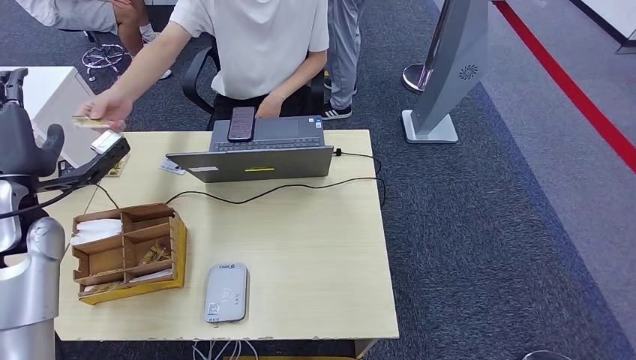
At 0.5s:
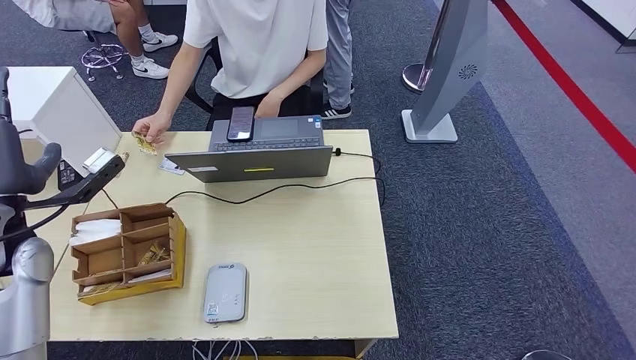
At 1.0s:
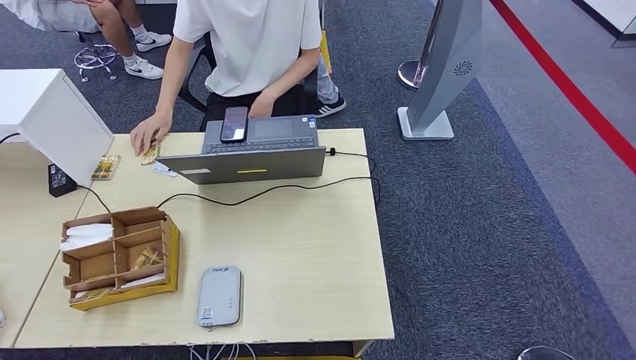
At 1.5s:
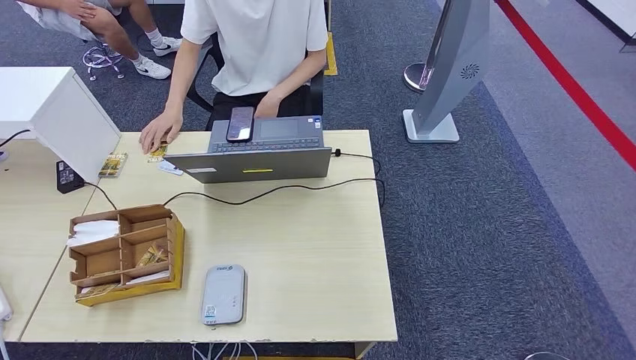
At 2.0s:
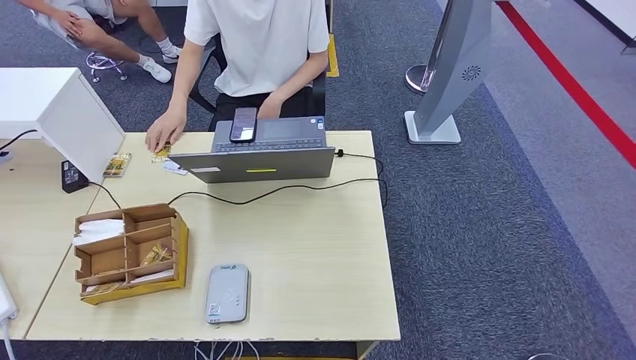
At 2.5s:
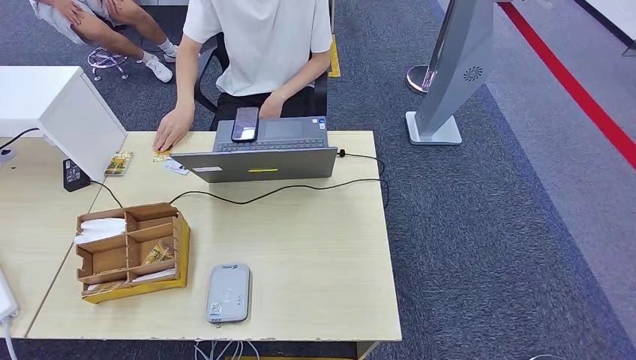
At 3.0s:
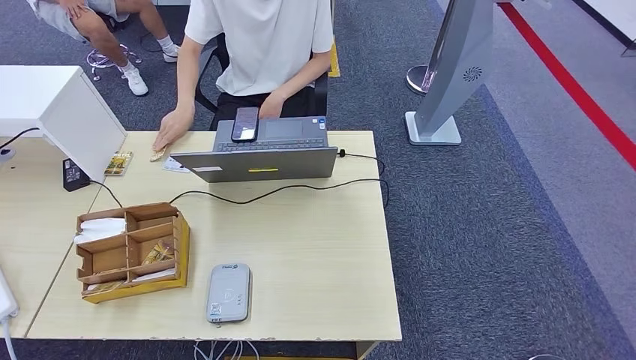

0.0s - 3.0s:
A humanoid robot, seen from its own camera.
Step, 0.0s - 3.0s: Hand the room key to the person.
1.5s - 3.0s: The left hand heads to the right and downward, covering roughly 50 cm.

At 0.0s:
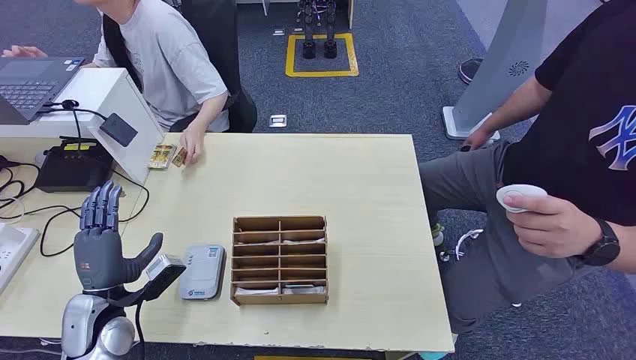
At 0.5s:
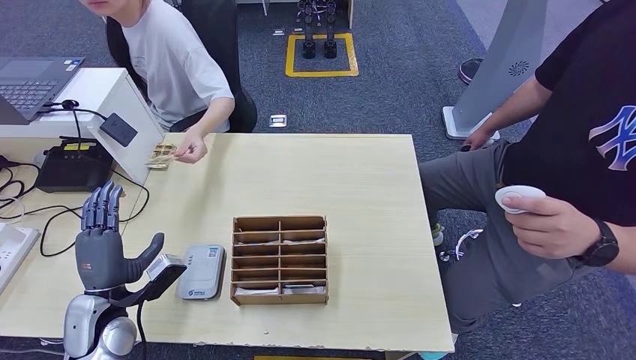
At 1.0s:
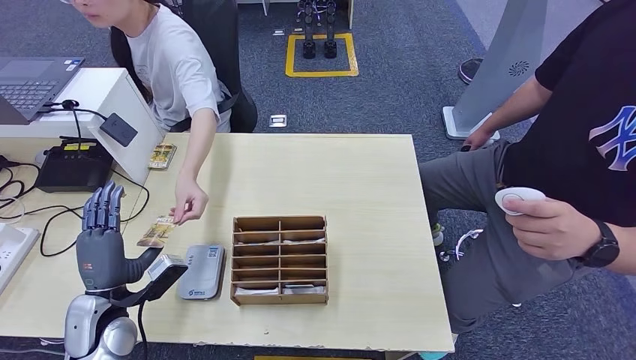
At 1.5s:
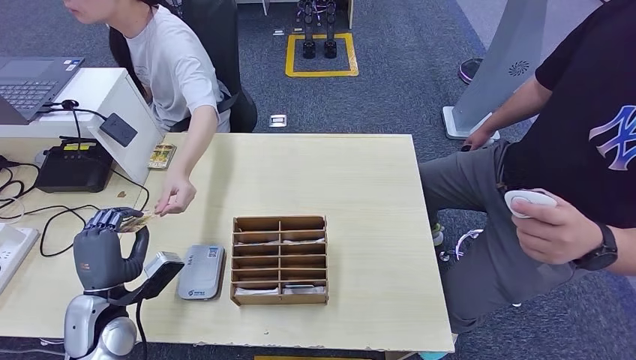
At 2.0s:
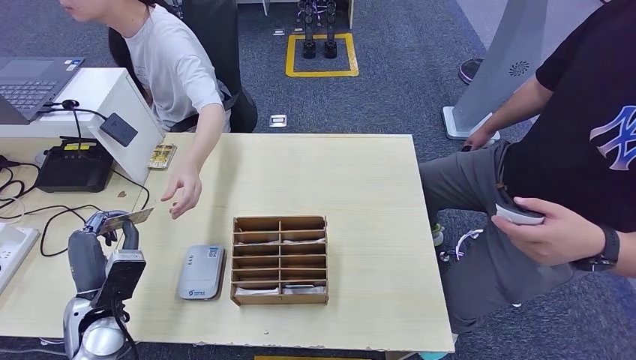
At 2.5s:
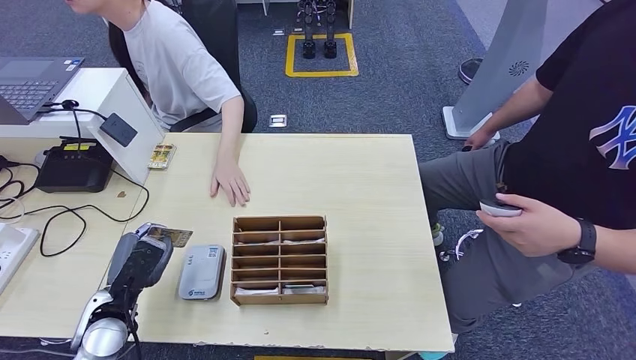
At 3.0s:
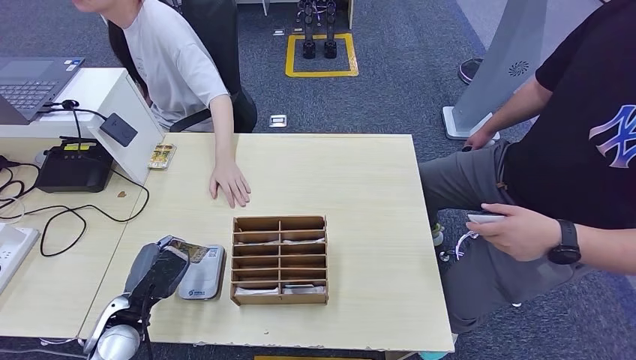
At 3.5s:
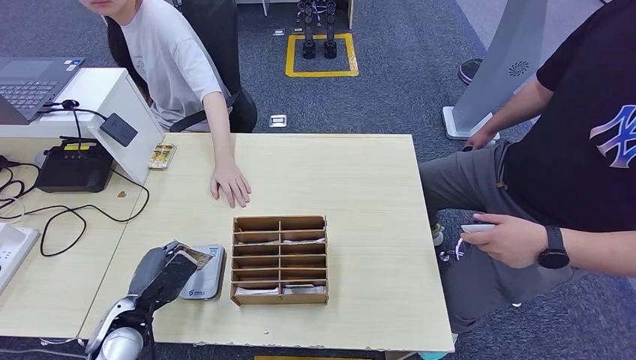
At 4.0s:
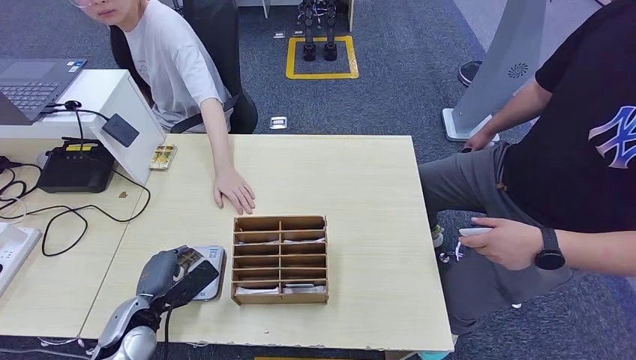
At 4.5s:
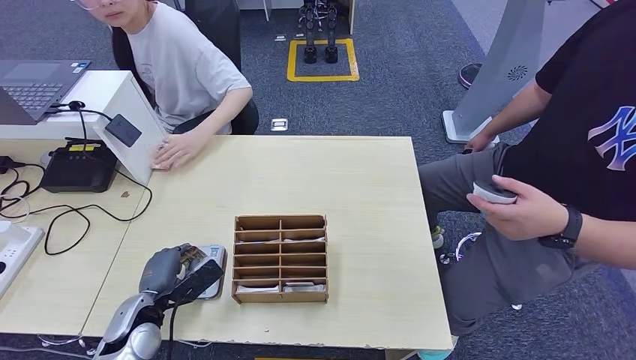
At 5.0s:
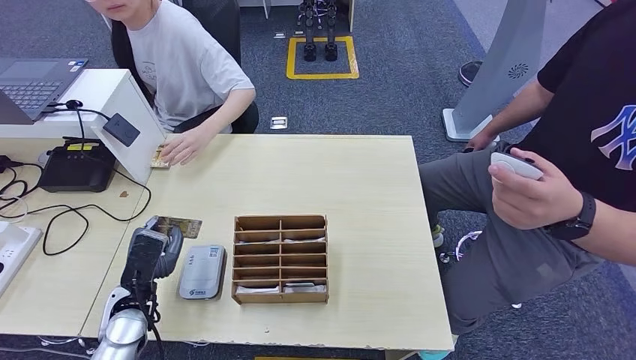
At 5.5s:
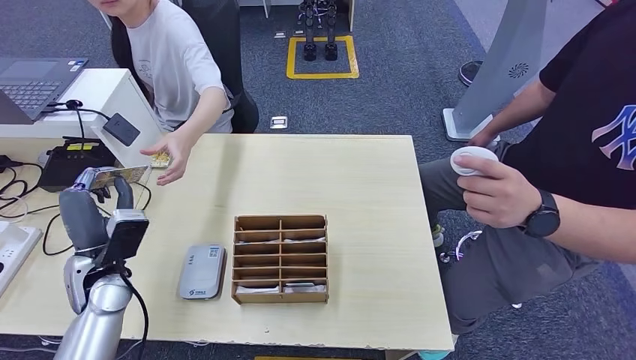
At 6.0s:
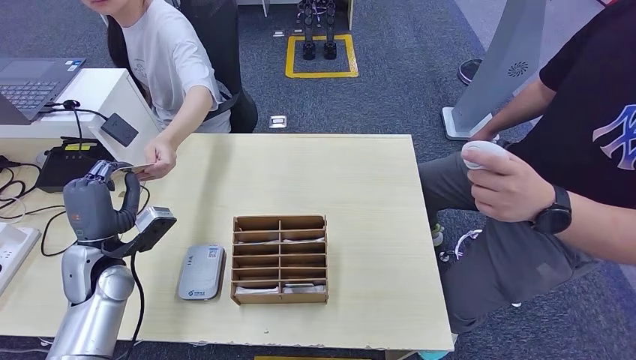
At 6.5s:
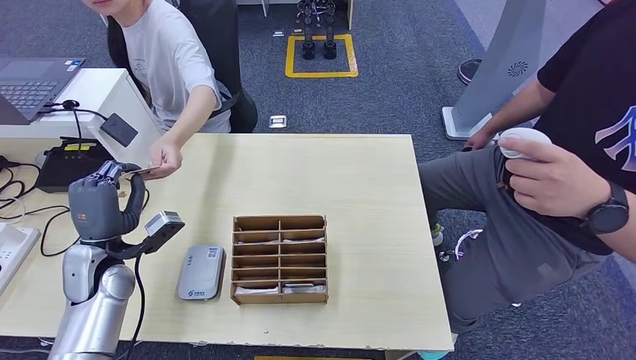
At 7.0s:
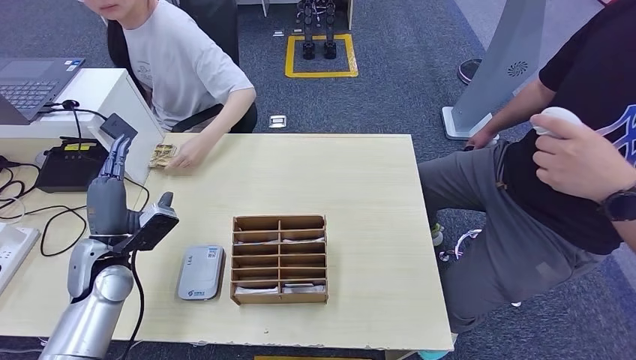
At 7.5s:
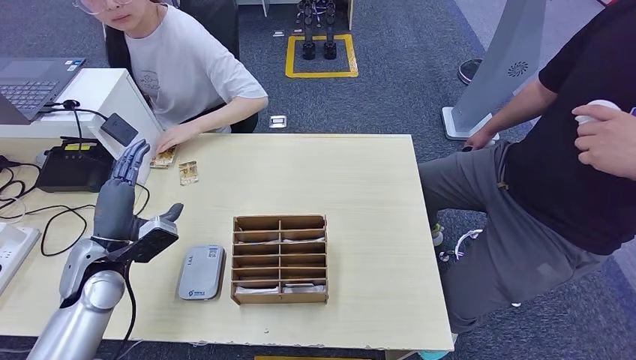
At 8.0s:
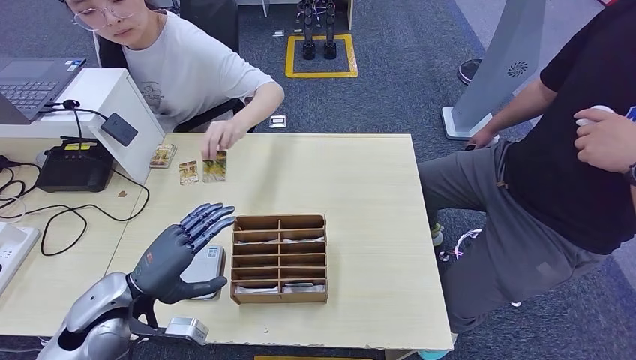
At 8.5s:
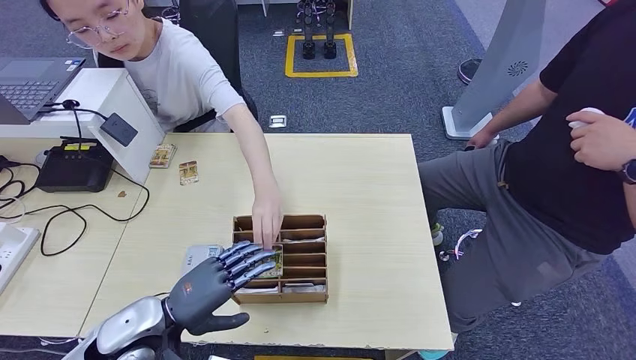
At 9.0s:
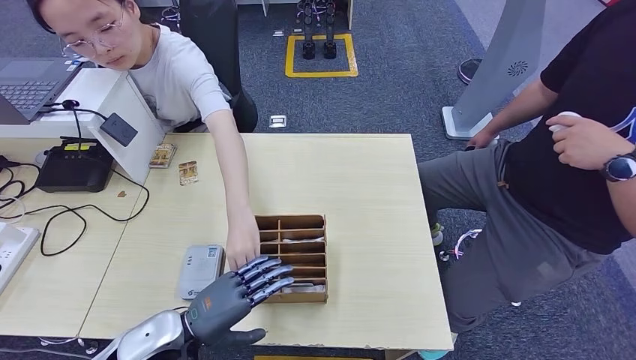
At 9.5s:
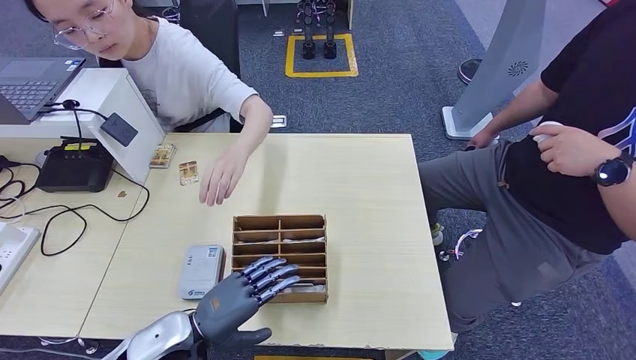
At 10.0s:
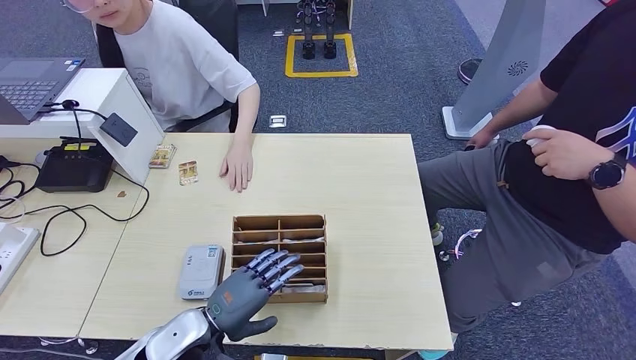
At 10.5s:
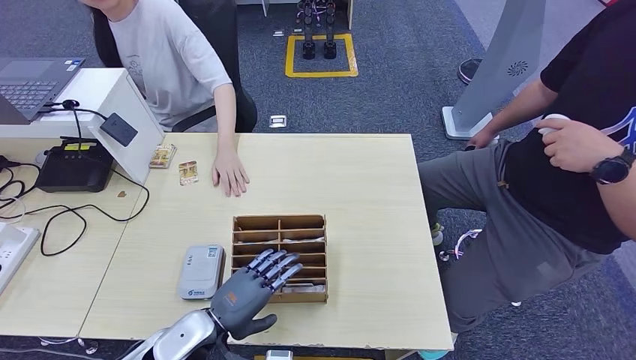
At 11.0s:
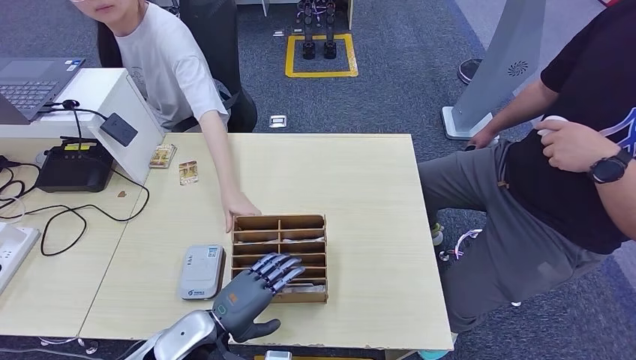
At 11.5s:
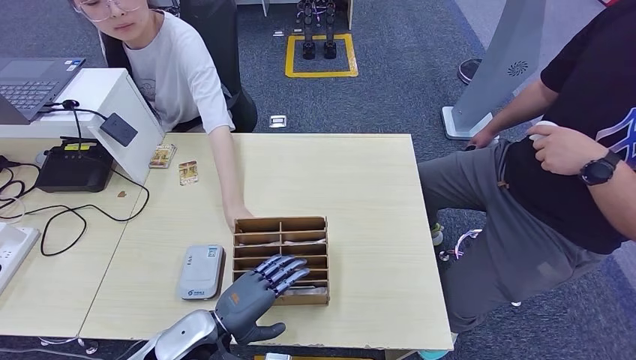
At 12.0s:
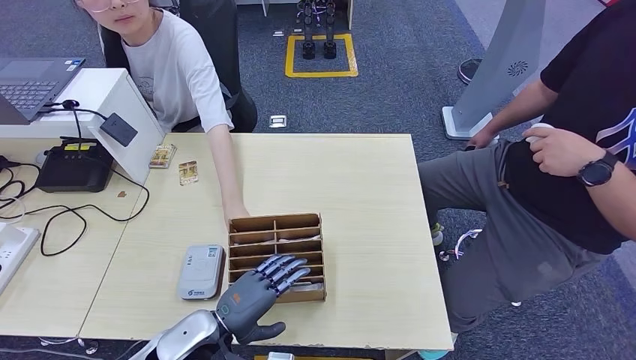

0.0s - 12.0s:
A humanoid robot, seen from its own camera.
Step, 0.0s - 2.0s: Take the ID card from the person's hand.
Step, 2.5s - 4.0s: Place the ID card on the card reader.
Step, 4.5s - 6.5s: Hand the ID card to the person.
2.0s - 4.0s: The left hand travels downward by some 5 cm.
4.0s - 6.0s: The left hand goes approximately 15 cm upward and forward.
8.0s - 10.0s: The left hand goes some 10 cm to the right and downward.
10.0s - 12.0s: The hands stay close to where they were, moving slightly.

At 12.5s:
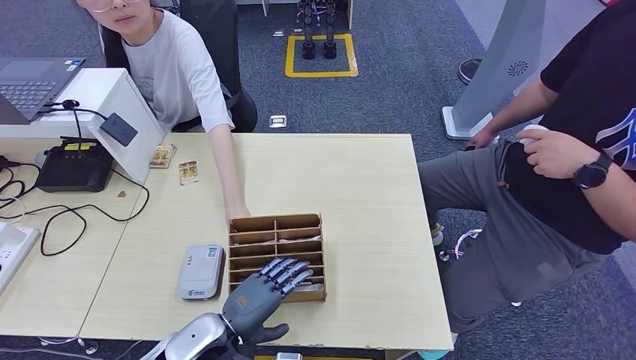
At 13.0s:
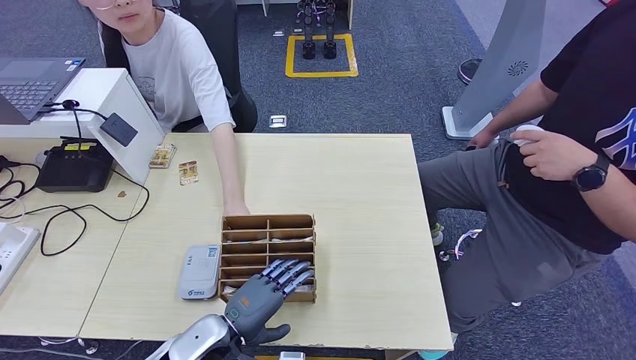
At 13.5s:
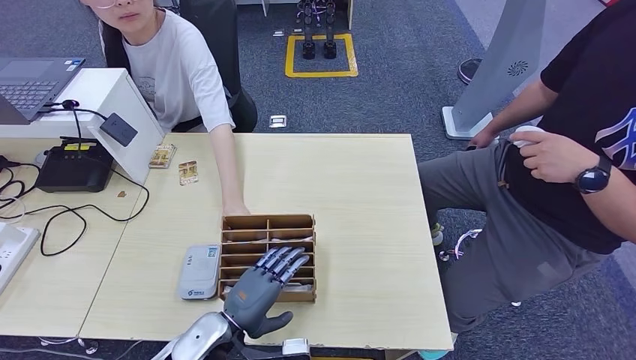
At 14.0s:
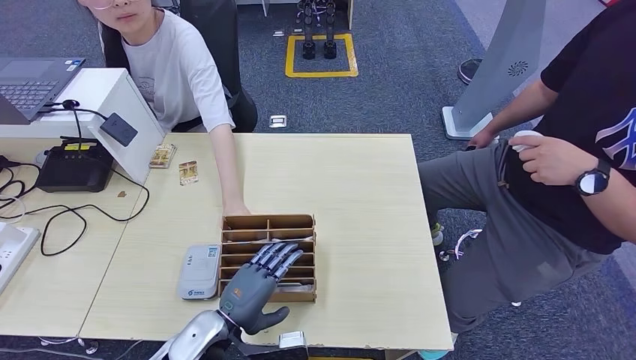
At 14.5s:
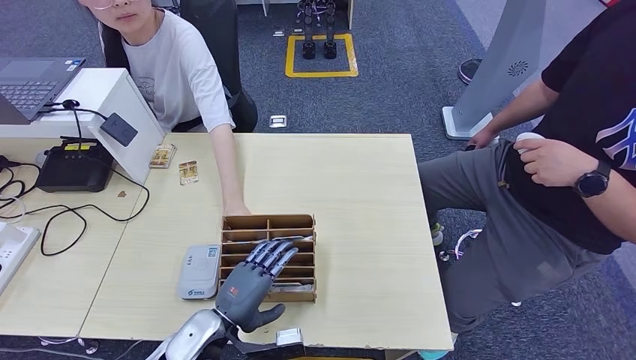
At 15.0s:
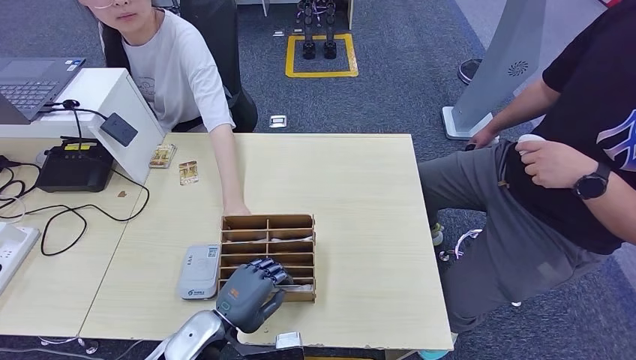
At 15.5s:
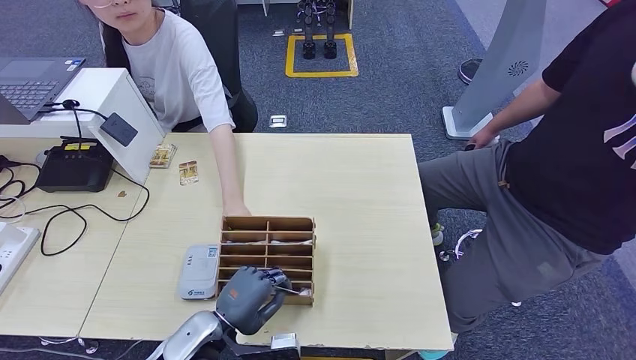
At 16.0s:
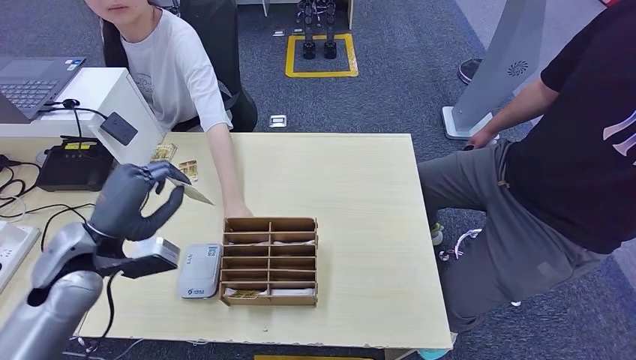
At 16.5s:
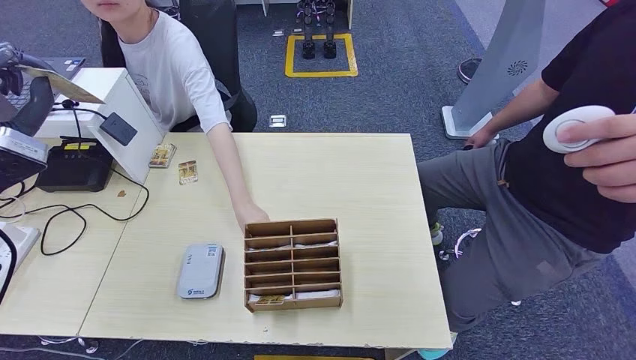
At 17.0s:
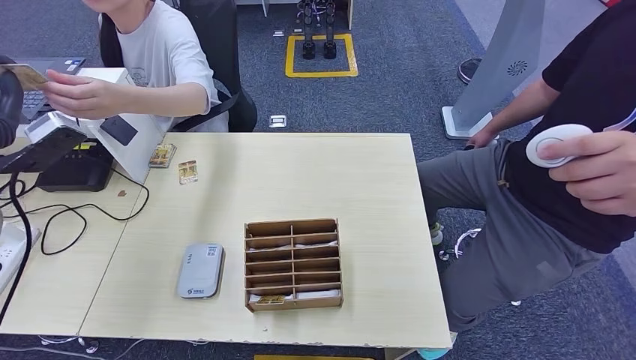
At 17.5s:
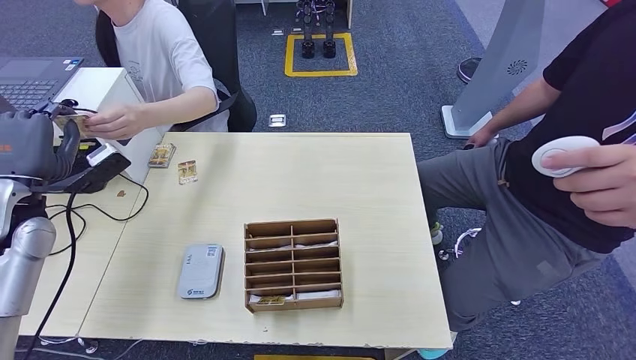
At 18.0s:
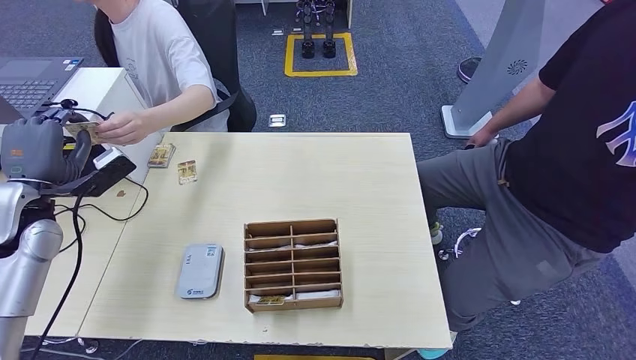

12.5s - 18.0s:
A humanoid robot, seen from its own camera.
Step, 12.5s - 16.5s: Pick up the room key from the key card box.
Step, 17.0s - 18.0s: Hand the room key to the person.
12.5s - 14.5s: The hands move only a little.
14.5s - 16.0s: The left hand shifts about 20 cm to the left, upward and forward.
